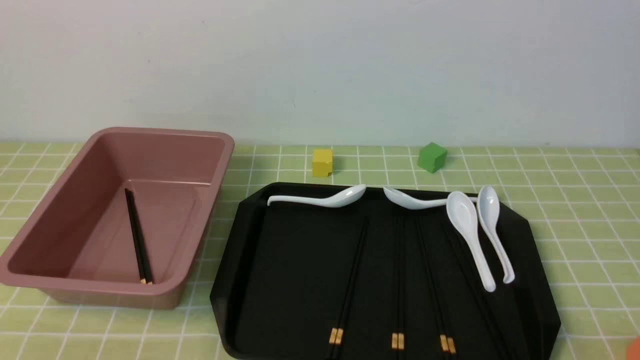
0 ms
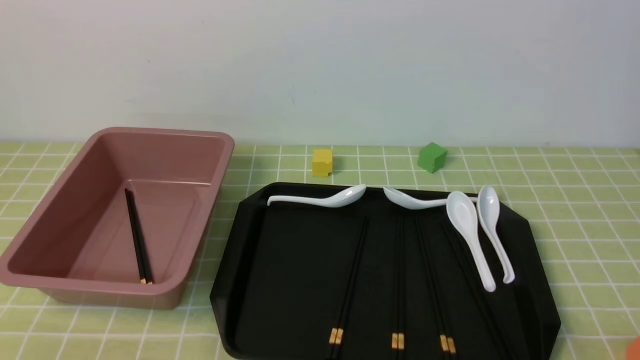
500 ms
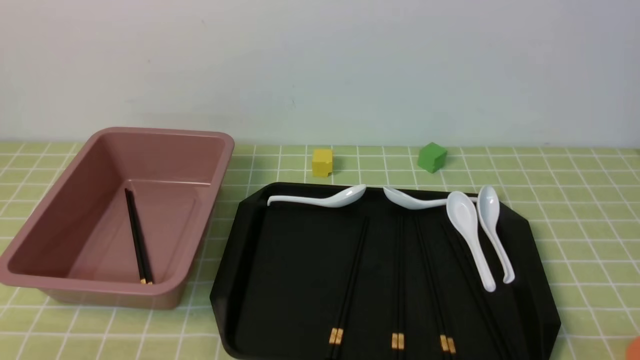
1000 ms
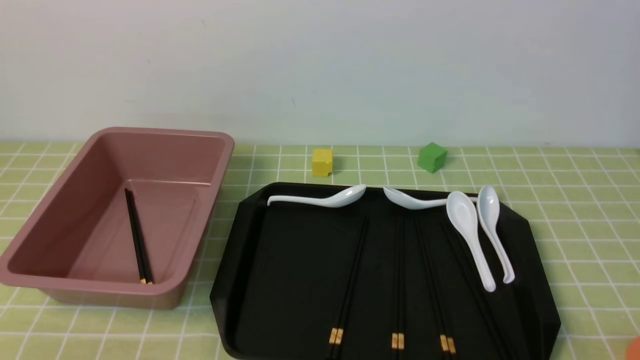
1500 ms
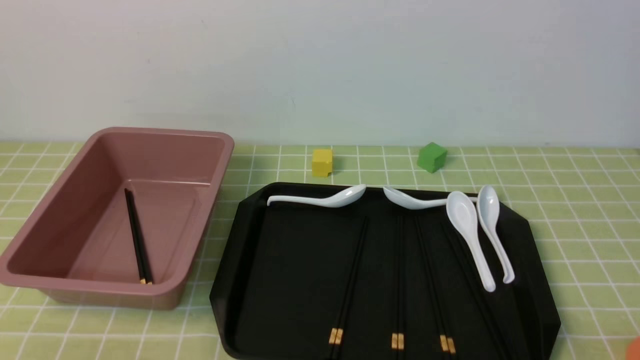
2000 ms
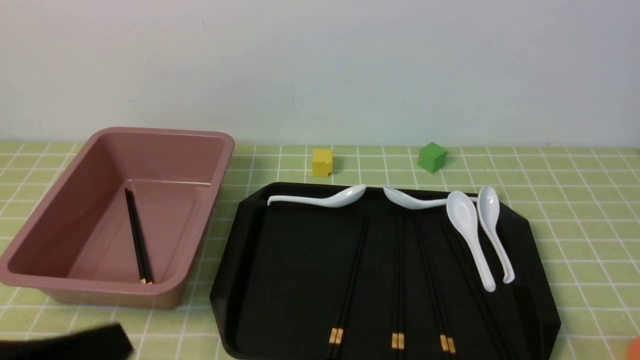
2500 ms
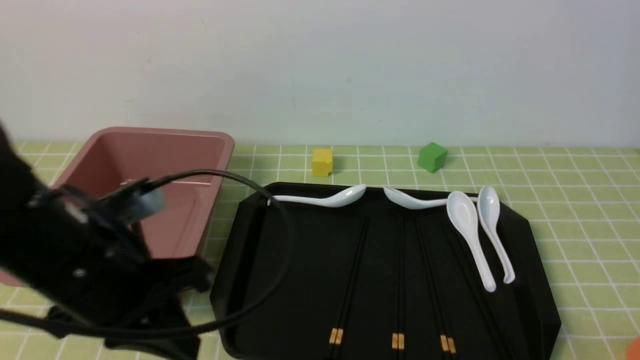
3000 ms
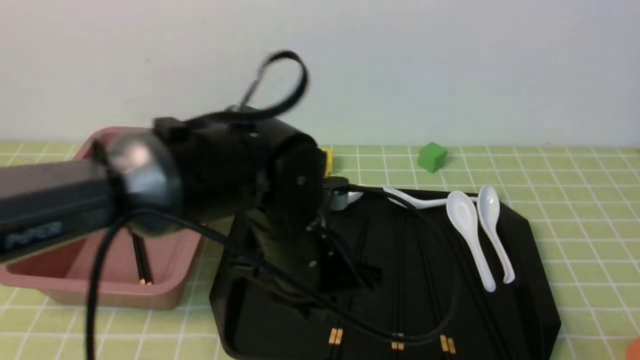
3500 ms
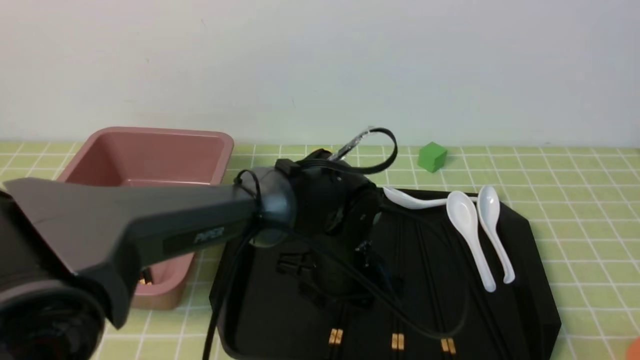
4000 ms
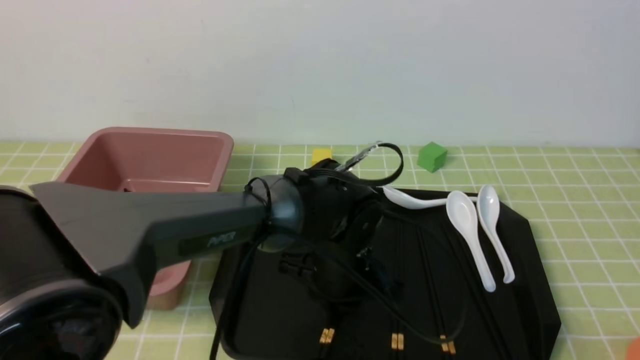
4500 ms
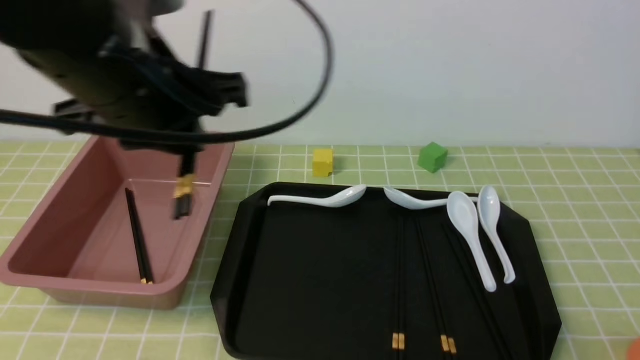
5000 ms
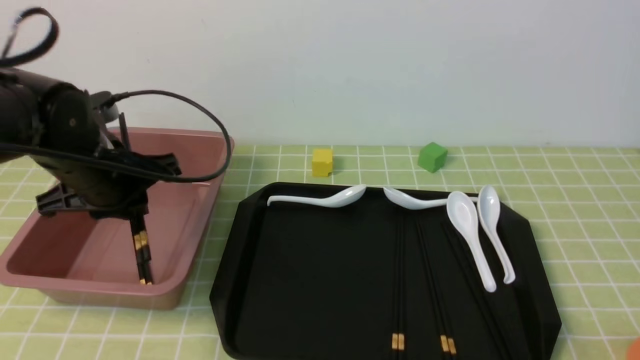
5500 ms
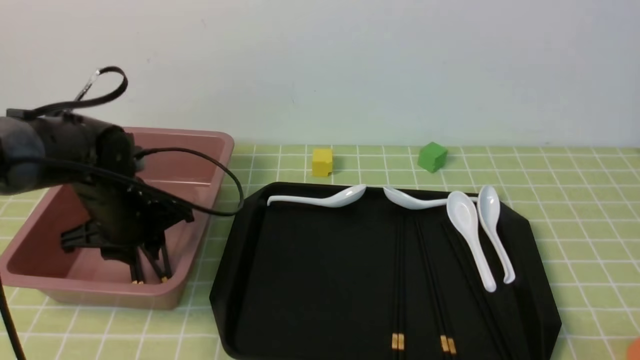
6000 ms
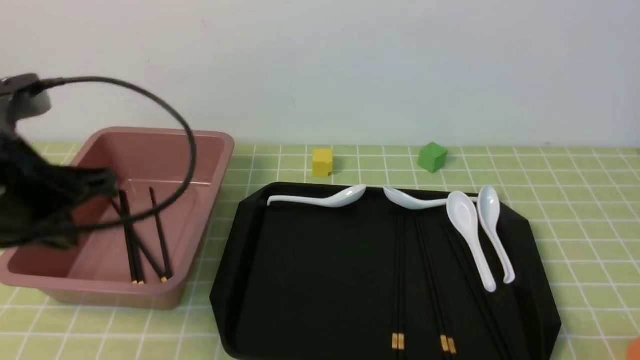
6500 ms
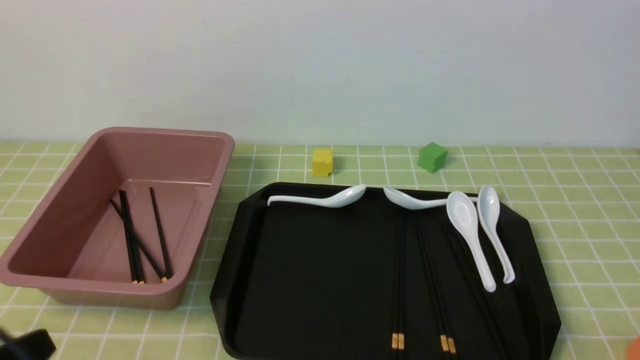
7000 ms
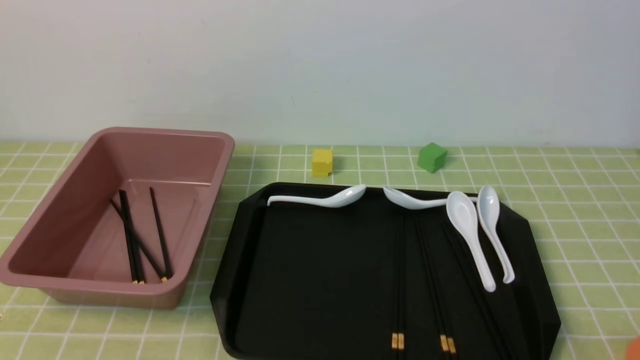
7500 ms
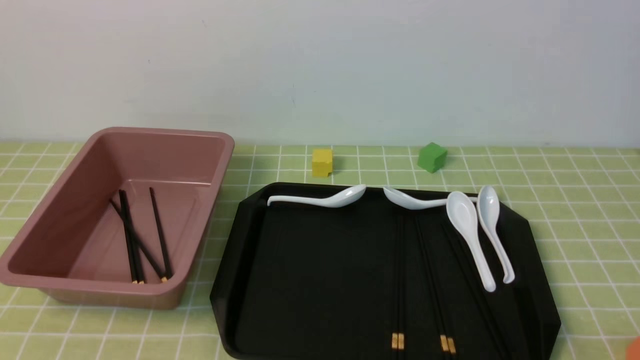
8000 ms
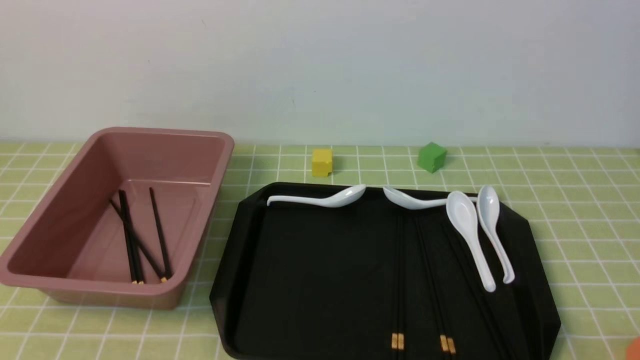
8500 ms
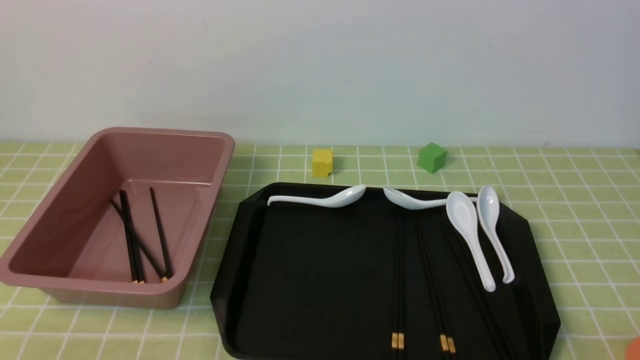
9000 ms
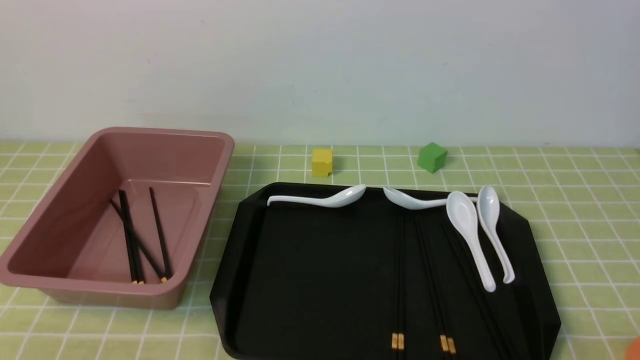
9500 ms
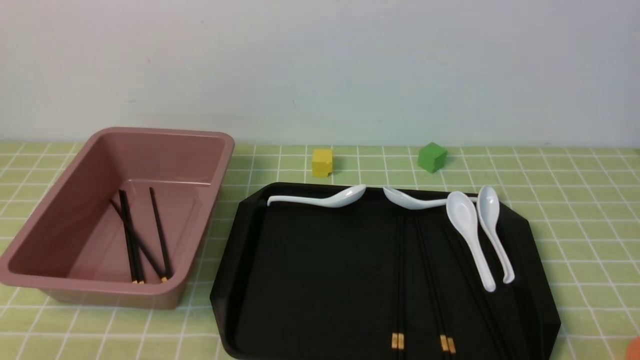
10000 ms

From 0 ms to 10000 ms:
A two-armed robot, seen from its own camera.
Step, from 0 ms to 4500 ms: use the left arm to grab a pair of chopsticks.
Step, from 5000 ms to 6000 ms: use the left arm to put the chopsticks into the lunch box.
From 2000 ms to 4000 ms: The left gripper shifts some 35 cm forward and to the right, and opens.
From 4000 ms to 6000 ms: The left gripper travels to the left by about 25 cm, and closes.
From 6000 ms to 8000 ms: The left gripper travels backward by roughly 30 cm, and closes.

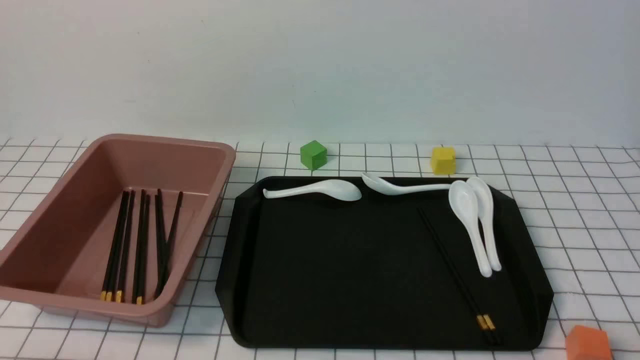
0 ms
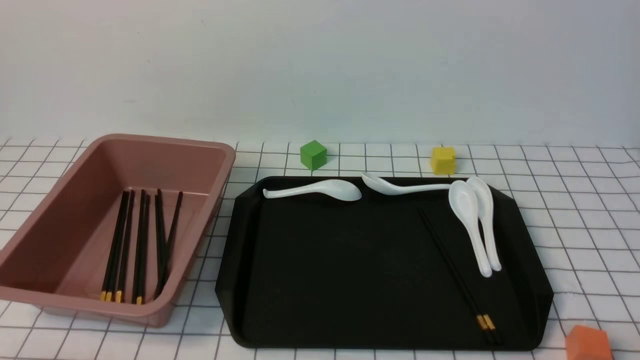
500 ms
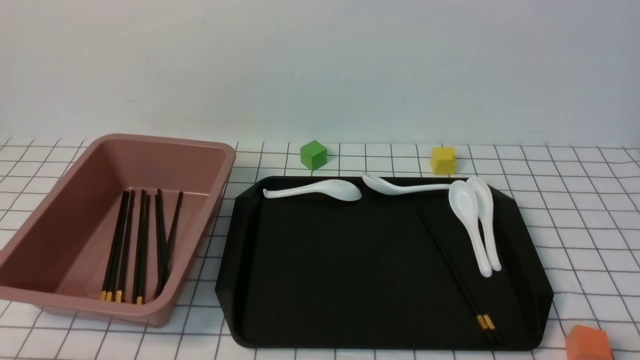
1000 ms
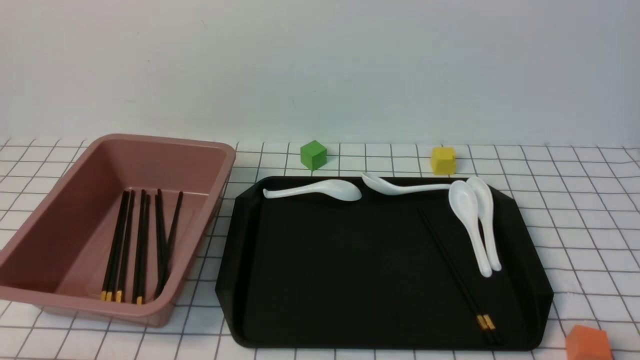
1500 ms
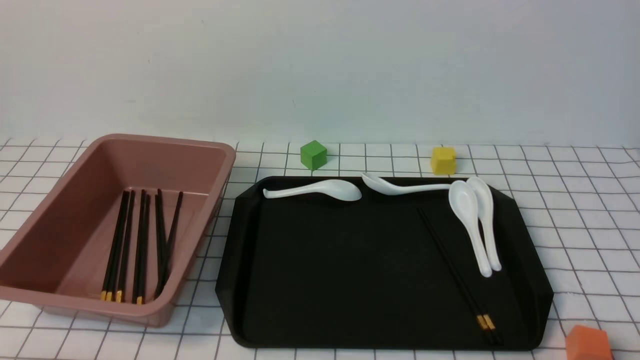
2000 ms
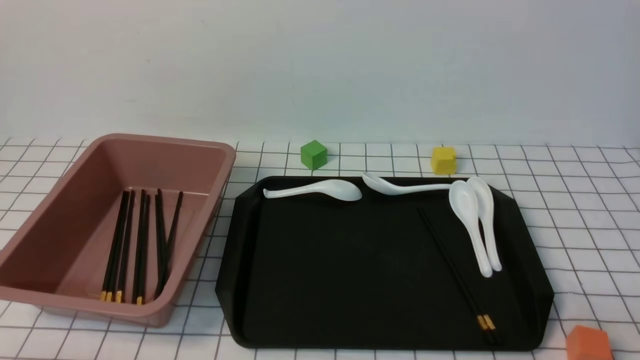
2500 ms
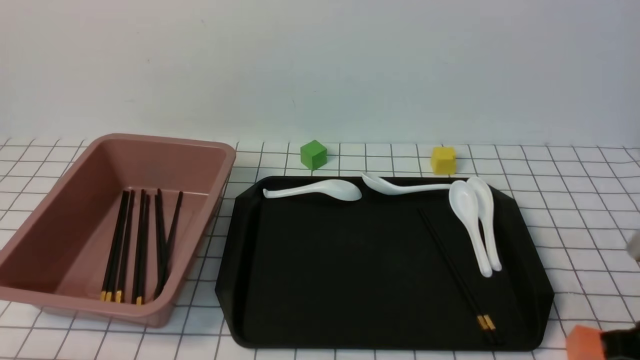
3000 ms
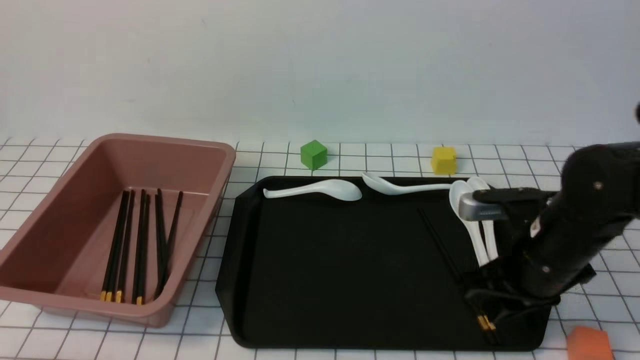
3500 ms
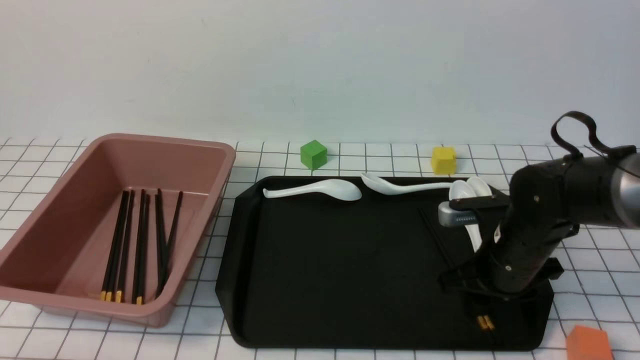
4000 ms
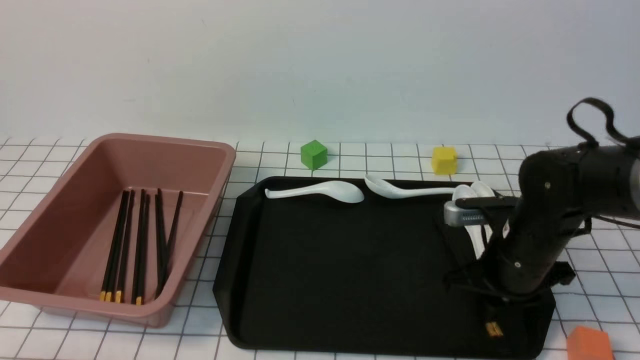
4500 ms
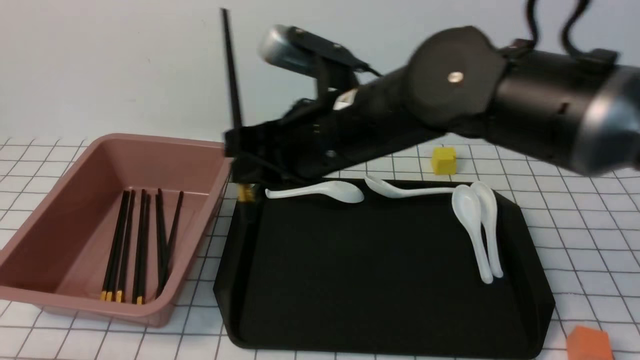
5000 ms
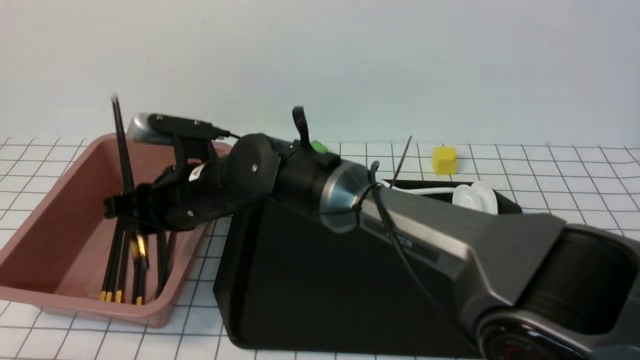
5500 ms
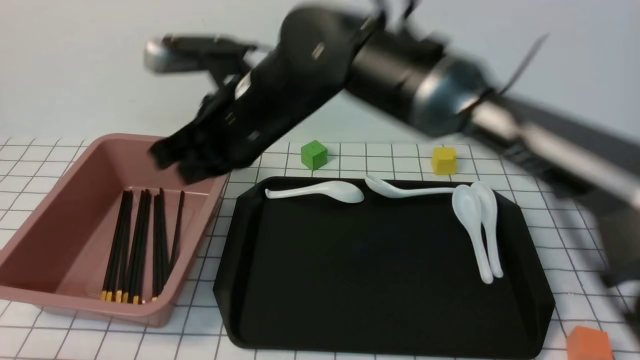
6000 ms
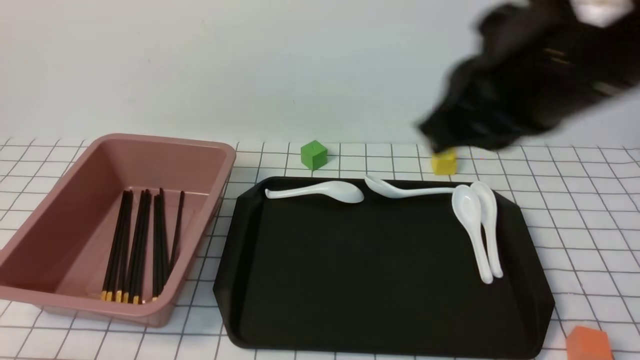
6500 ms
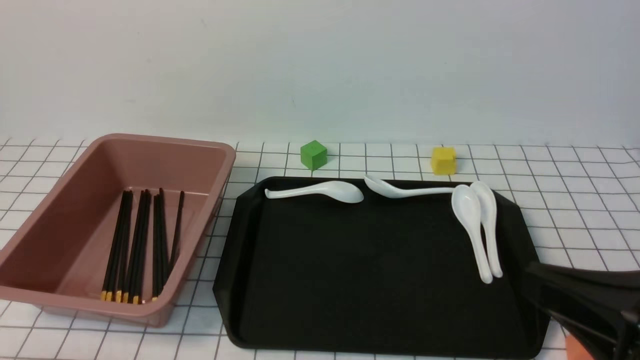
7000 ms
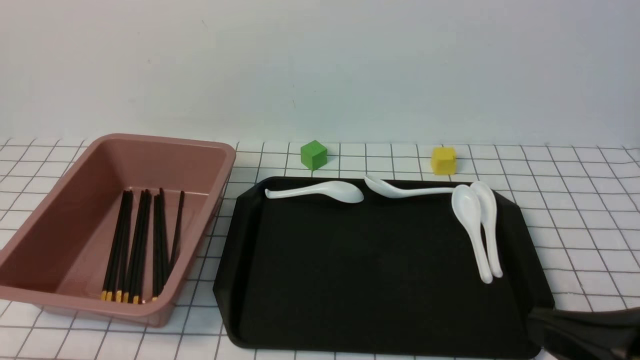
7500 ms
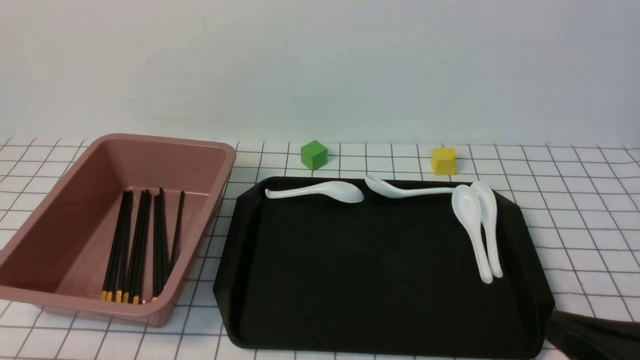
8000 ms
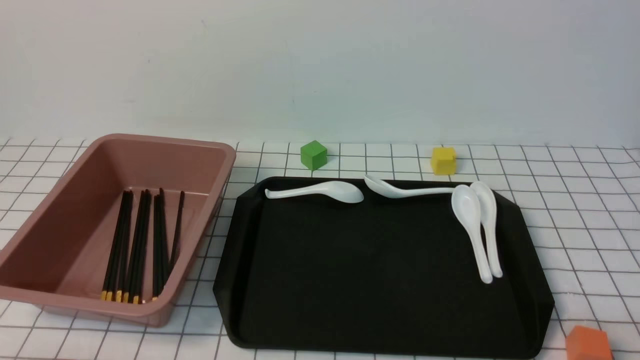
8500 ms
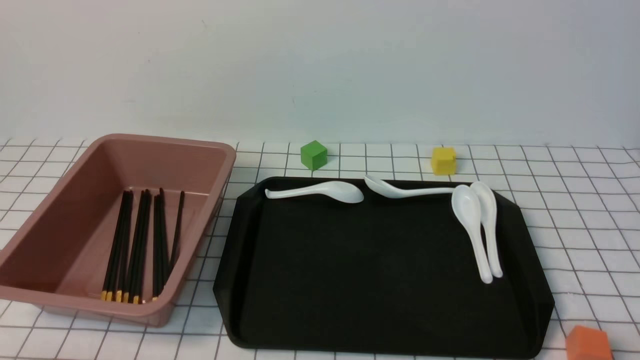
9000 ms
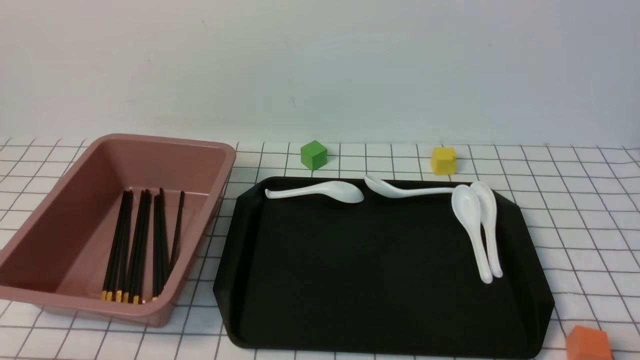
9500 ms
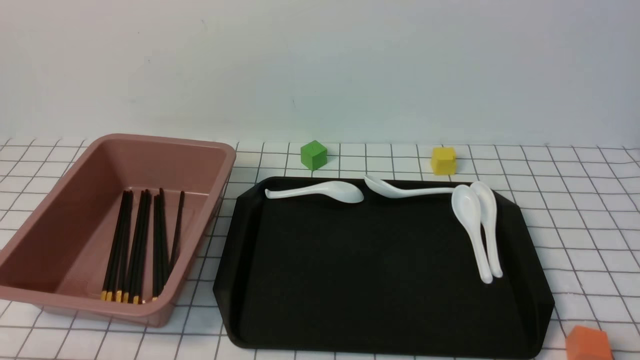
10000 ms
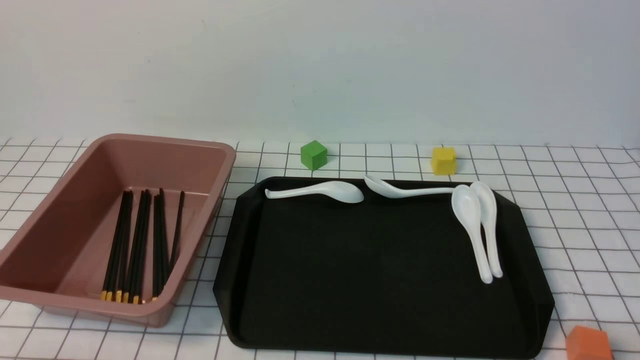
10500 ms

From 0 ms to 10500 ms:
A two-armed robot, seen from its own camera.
Step, from 0 ms to 4500 ms: use the right arm to grab a pair of chopsticks.
Step, from 5000 ms to 5500 ms: use the right arm to put the chopsticks into the lunch box.
From 2000 ms to 4000 ms: The right gripper moves forward, approximately 30 cm, and closes, then reopens.
From 4000 ms to 6500 ms: The right gripper is displaced upward and backward by some 30 cm, goes to the left and returns, roughly 30 cm each way, and closes its fingers.
From 6500 ms to 8500 ms: The right gripper is displaced downward, to the right and backward by some 30 cm.
